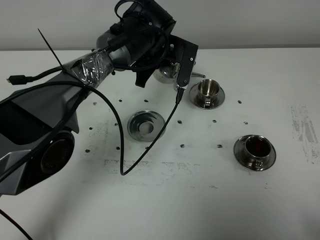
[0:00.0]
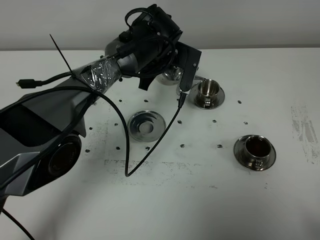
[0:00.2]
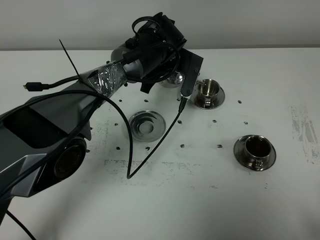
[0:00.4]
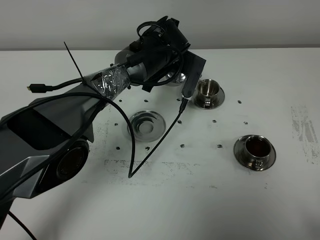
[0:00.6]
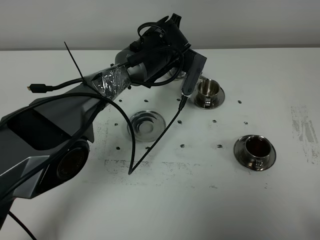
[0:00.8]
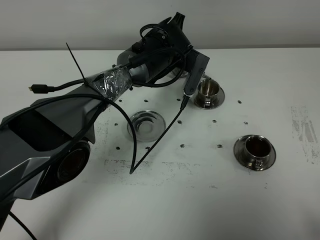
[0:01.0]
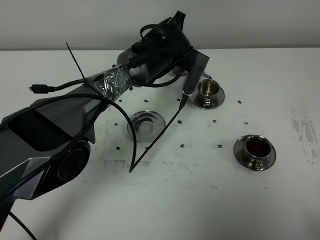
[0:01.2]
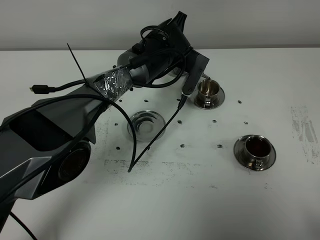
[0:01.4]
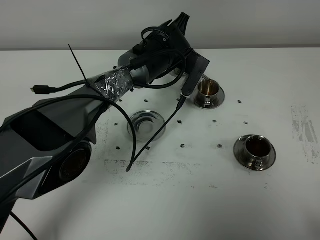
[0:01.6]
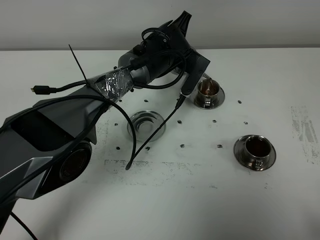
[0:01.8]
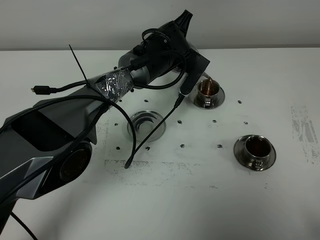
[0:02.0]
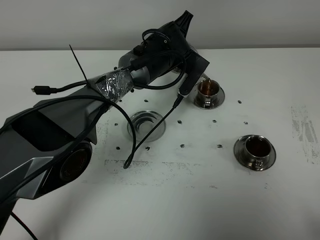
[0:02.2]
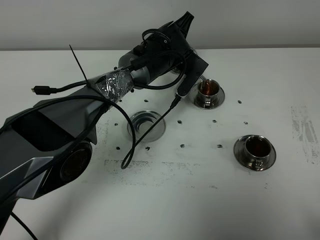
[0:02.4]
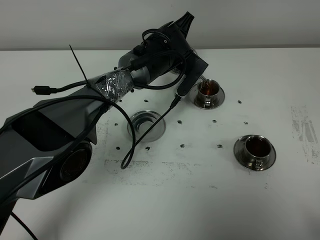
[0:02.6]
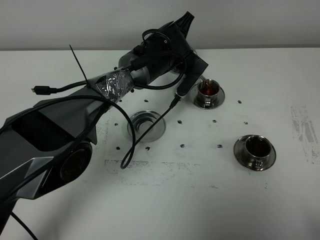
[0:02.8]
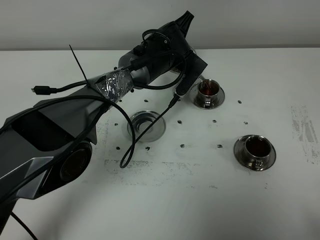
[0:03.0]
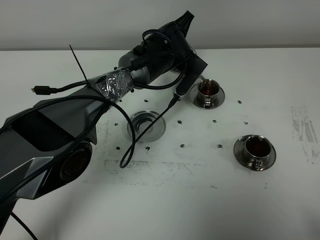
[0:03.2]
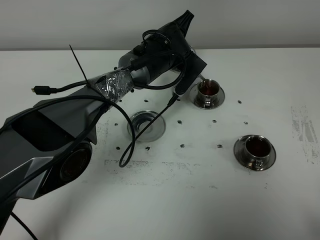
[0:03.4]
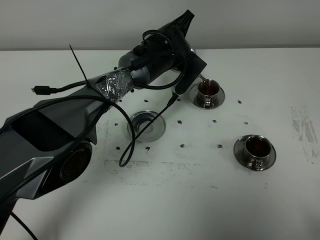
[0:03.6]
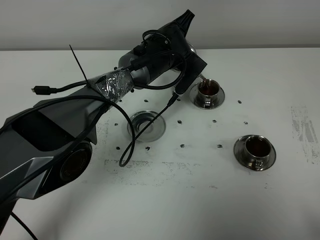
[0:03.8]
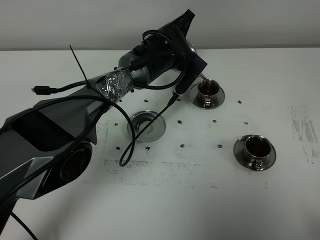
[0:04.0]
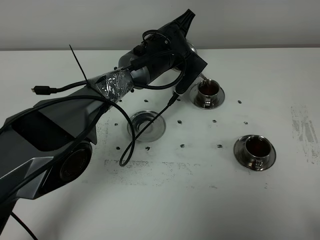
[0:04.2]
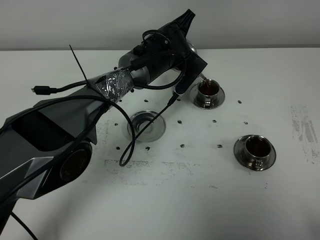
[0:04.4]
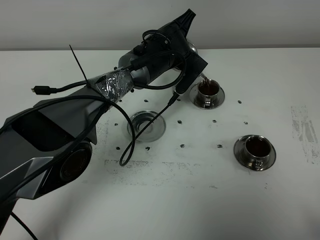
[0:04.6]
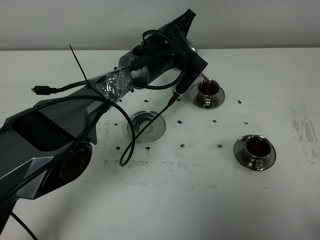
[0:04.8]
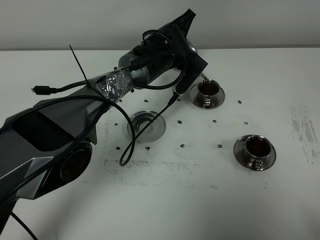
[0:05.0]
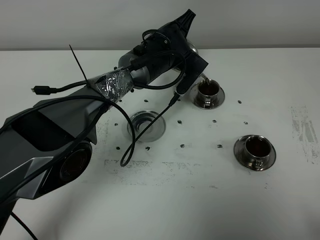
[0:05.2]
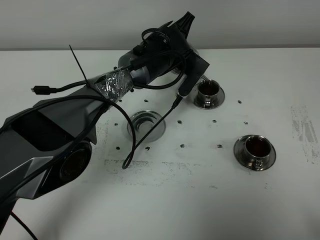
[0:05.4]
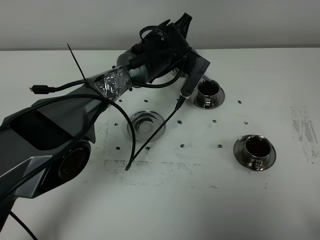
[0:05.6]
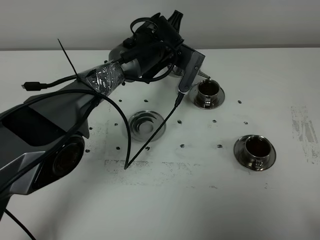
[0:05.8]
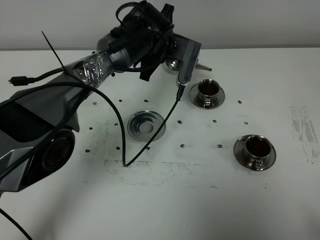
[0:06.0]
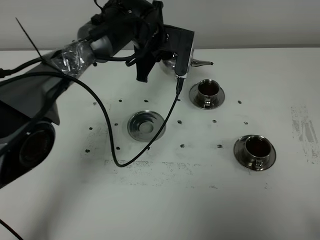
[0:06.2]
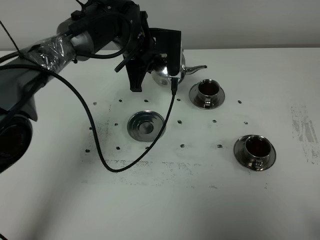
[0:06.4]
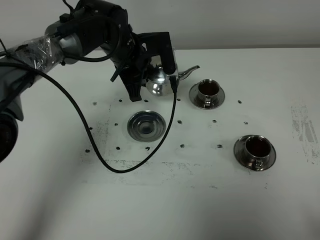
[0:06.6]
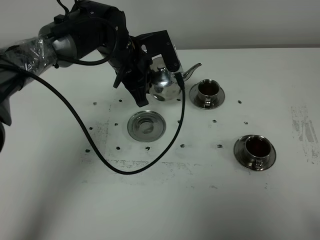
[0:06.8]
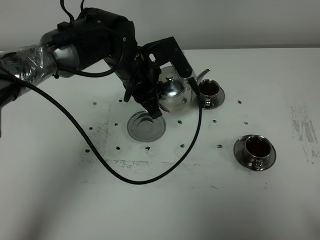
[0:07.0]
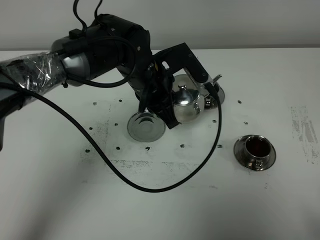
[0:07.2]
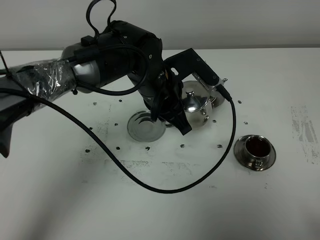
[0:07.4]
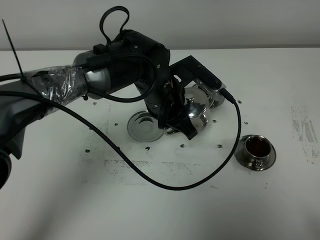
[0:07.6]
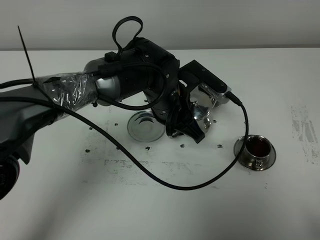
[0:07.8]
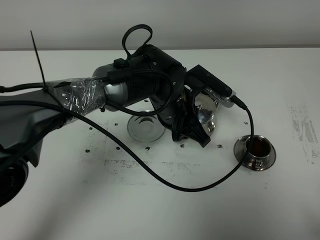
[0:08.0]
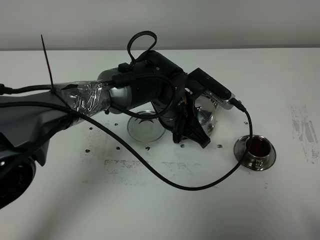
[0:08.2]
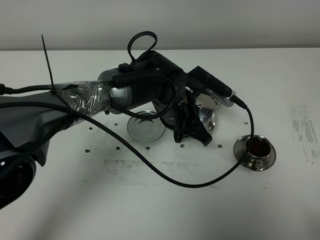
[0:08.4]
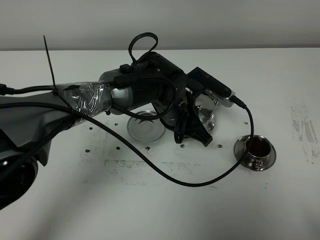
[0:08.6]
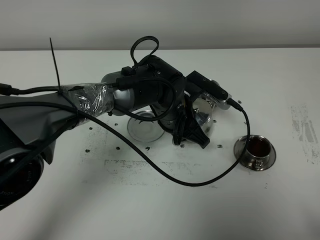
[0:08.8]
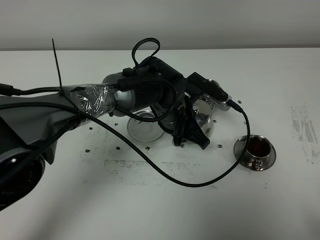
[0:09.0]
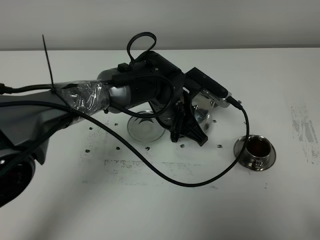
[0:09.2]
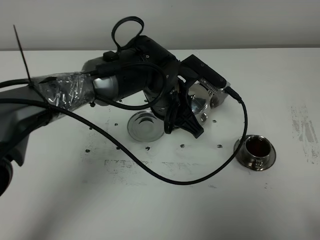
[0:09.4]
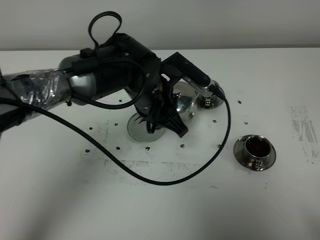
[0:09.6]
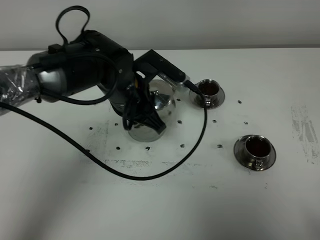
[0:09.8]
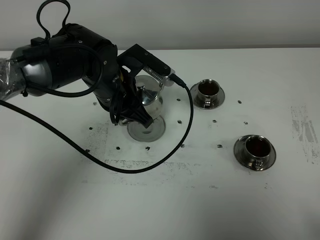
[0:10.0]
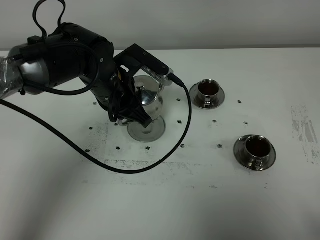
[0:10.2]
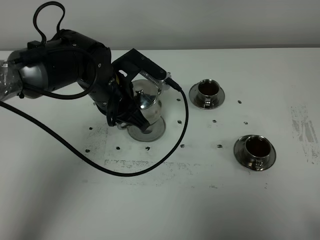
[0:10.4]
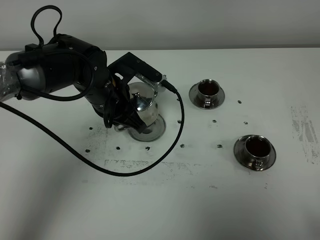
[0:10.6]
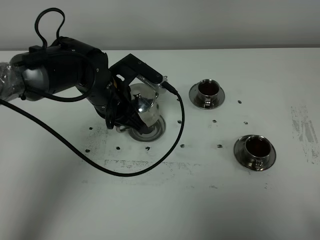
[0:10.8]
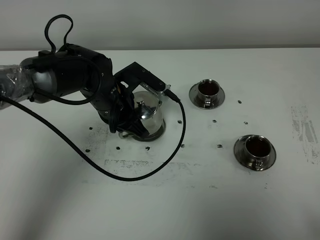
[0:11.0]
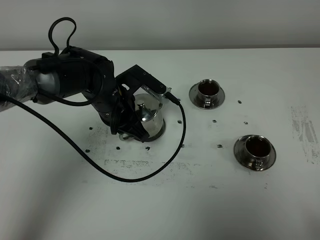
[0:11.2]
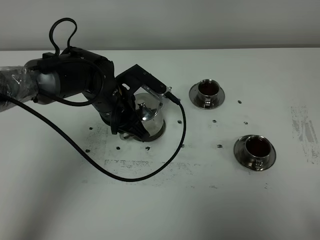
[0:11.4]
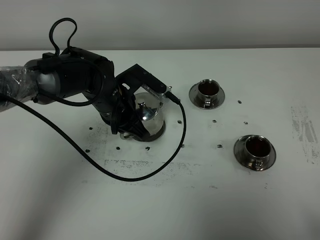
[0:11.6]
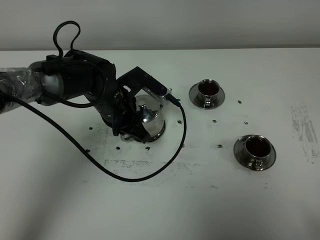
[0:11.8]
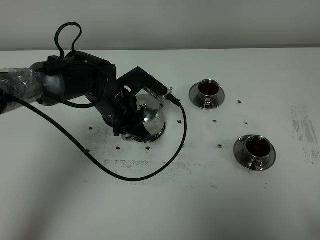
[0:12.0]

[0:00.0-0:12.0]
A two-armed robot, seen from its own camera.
Task of the whole recording: grasp the stainless steel teapot and pour the tea into the two stainless steel teacups one by one, put the stainless steel teapot back in its original place.
Step, 0:00.0 to 0:06.0: Pour tea into the teacup with the left gripper.
0:01.6 to 0:03.0: There are only small adjustments of the grippers.
0:03.0 to 0:04.4: Both grippers stay about where they are.
0:06.0 to 0:07.6: The left gripper travels backward by roughly 15 cm.
0:07.6 to 0:09.0: The left gripper moves about 5 cm.
0:09.0 to 0:10.4: The left gripper travels to the left and upward by roughly 15 cm.
0:10.4 to 0:12.0: The grippers move only a little.

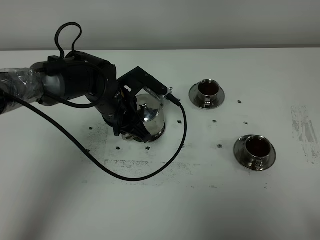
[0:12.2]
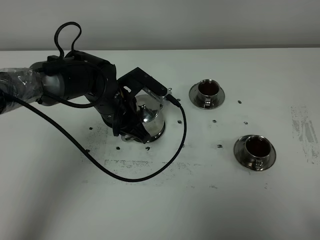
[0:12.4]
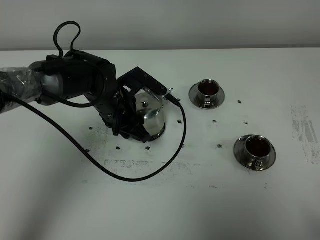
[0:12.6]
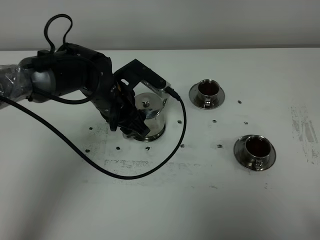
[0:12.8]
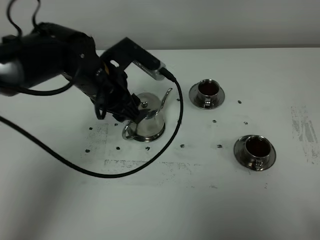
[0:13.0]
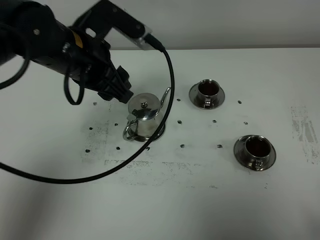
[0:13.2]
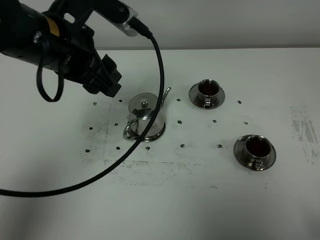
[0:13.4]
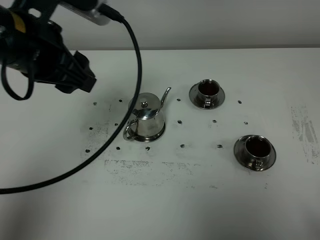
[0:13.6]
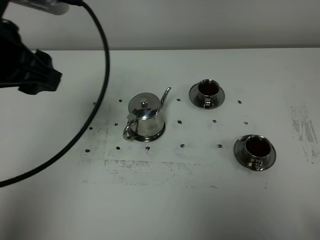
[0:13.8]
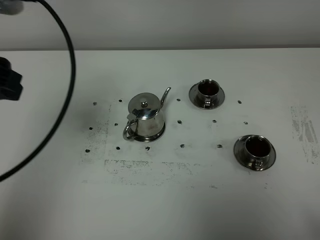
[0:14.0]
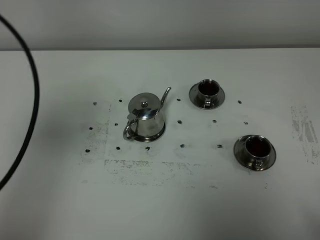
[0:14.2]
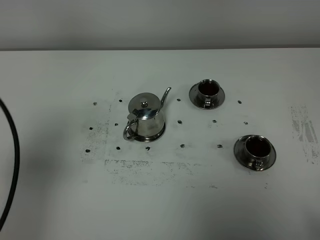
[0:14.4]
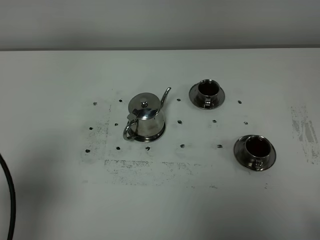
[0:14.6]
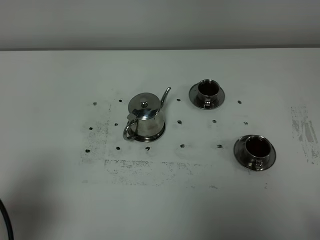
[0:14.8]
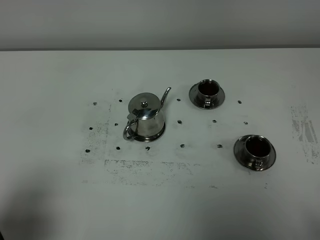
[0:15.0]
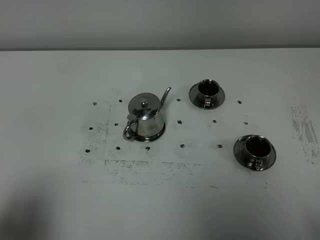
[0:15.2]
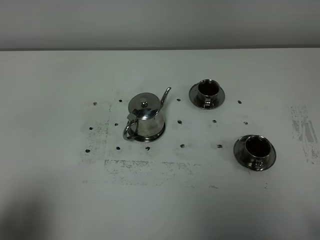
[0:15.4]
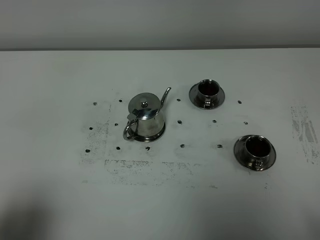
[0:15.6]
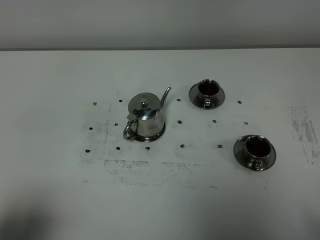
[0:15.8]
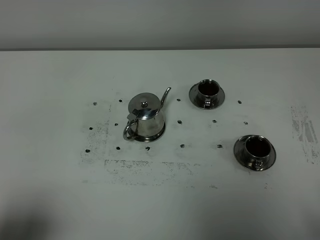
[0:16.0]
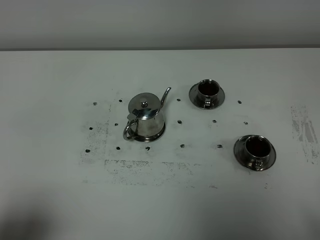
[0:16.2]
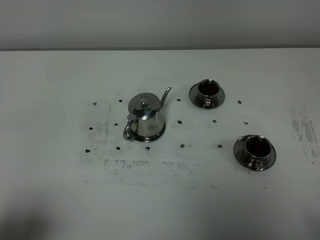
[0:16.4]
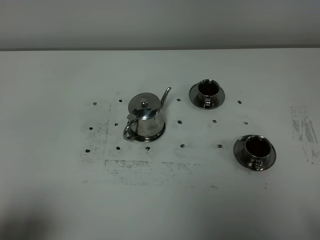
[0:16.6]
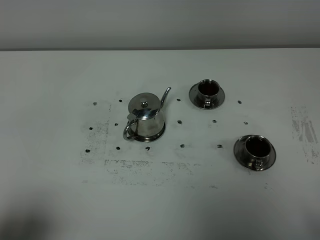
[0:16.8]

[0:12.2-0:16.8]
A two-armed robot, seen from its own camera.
Task of the whole recording: grasp the stainless steel teapot and pour the tea into the two stainless steel teacups one by one, put the stainless steel teapot back in its original place.
0:12.2 to 0:13.8: The left gripper travels upward, to the left and backward by roughly 30 cm, and opens.
0:13.8 to 0:15.2: The left gripper travels backward and downward by approximately 25 cm.
